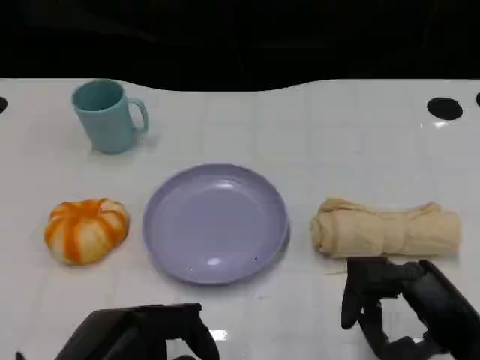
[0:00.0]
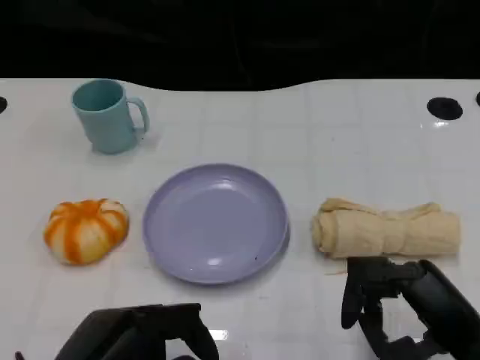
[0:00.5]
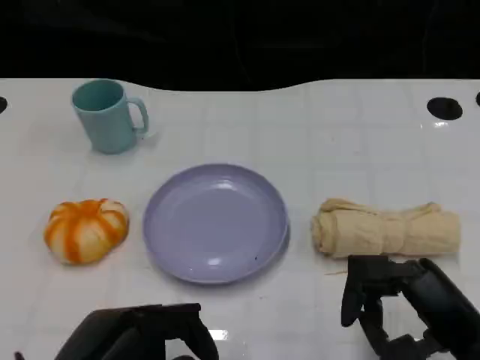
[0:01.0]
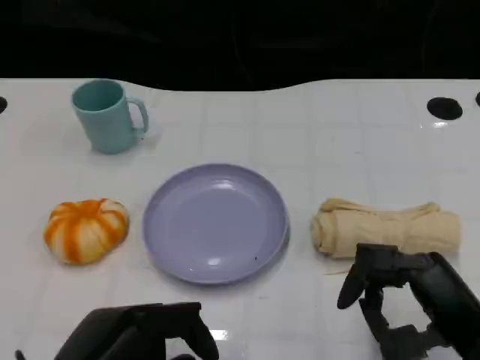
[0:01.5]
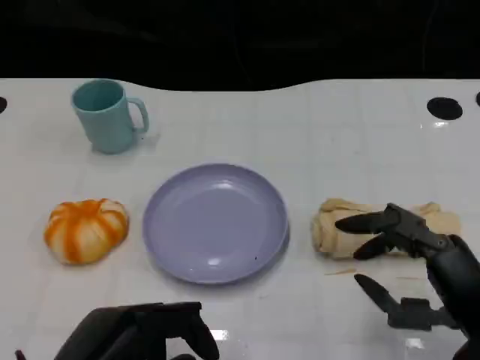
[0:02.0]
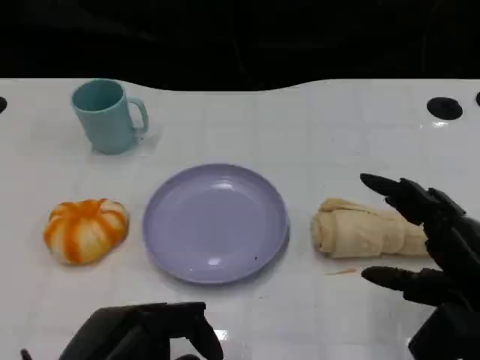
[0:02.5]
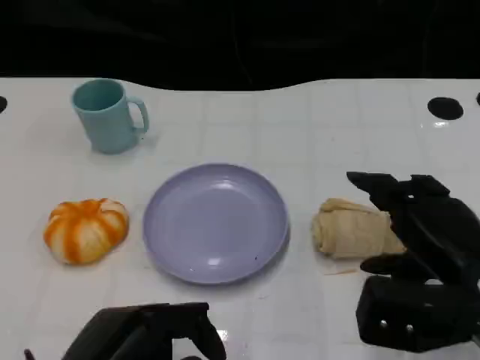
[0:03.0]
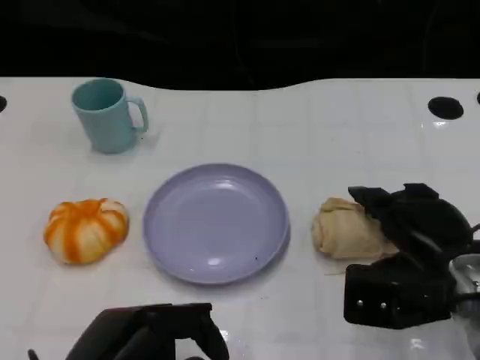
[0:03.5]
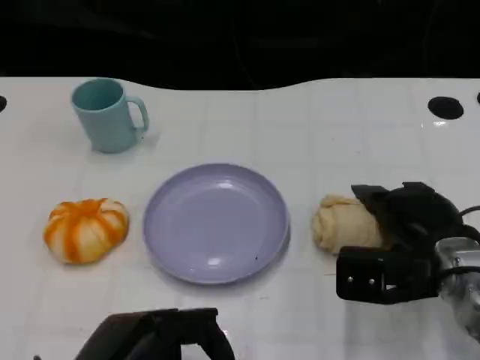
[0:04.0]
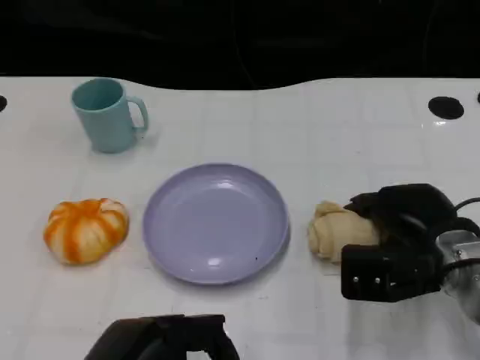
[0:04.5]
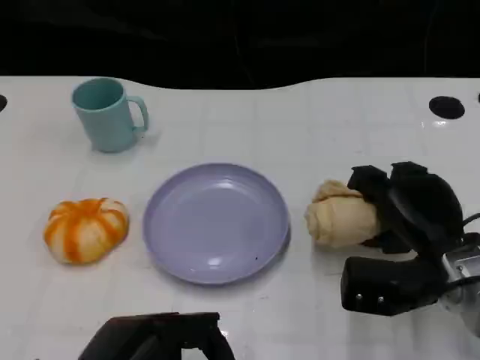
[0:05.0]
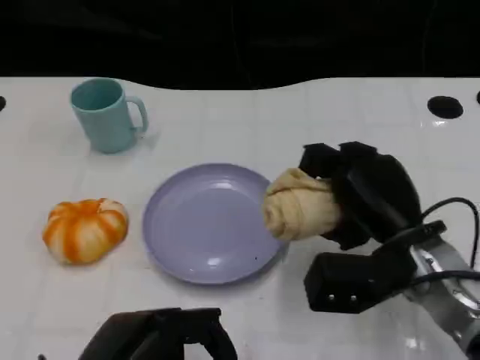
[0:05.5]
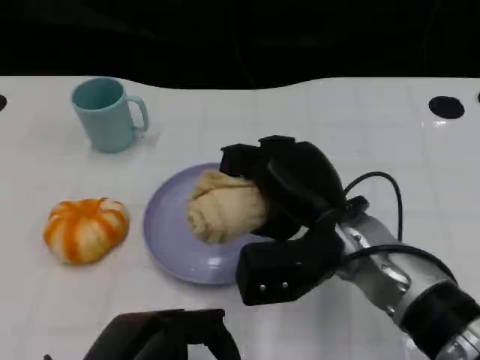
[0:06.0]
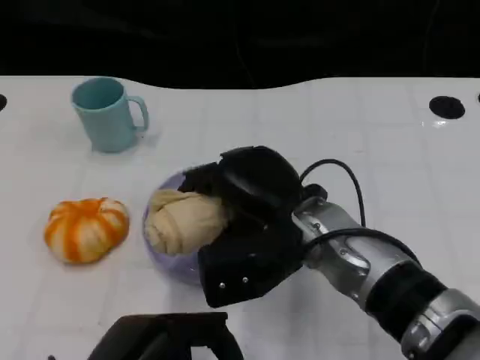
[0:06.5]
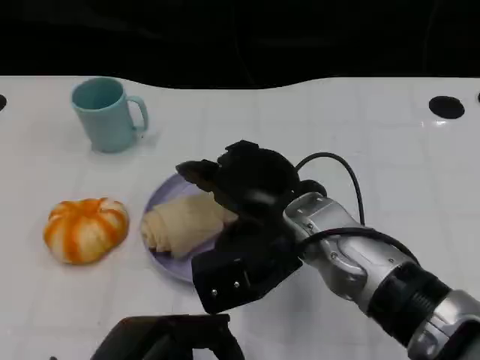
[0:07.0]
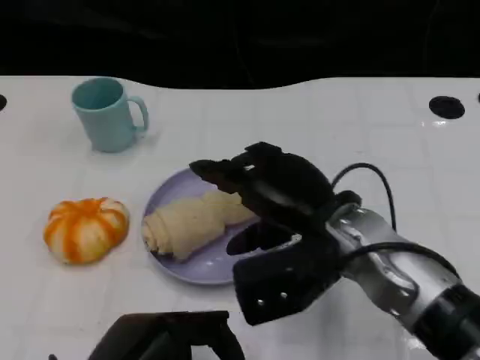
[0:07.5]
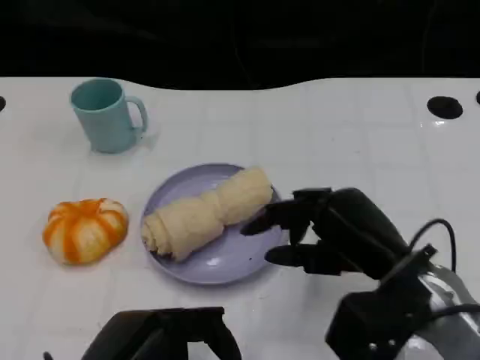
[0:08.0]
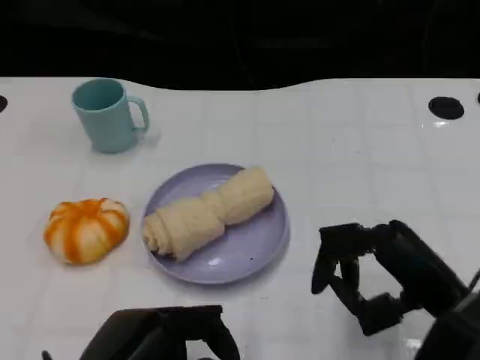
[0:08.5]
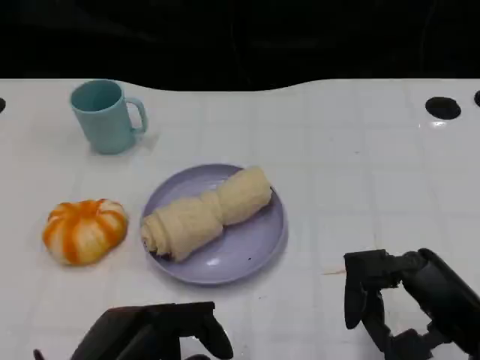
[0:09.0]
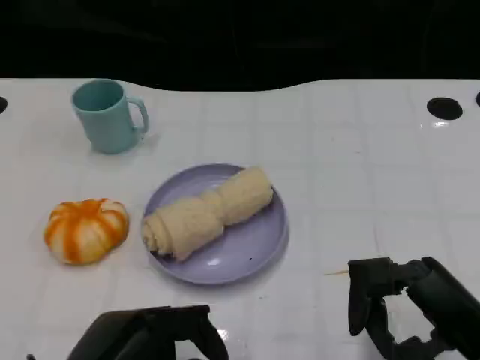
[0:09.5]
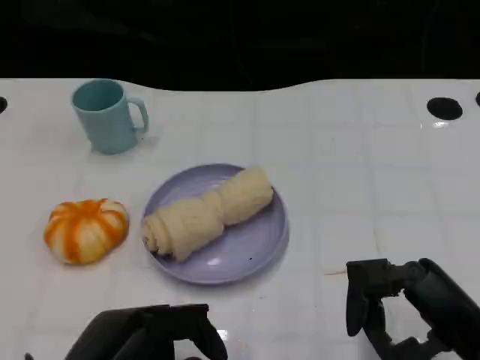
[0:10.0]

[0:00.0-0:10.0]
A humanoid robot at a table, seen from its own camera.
Task of the whole recording: Grasp the towel on the left side of the plate with the left hand and place it into the plate.
0:00.0 to 0:02.0: There are only small adjustments of the hands.
0:02.0 to 0:04.0: The right hand travels forward by about 10 cm.
0:04.0 to 0:06.0: The right hand shifts about 10 cm to the left.
0:06.0 to 0:08.0: The right hand goes about 10 cm to the right.
0:08.0 to 0:10.0: The right hand heads backward and to the right, covering roughly 10 cm.

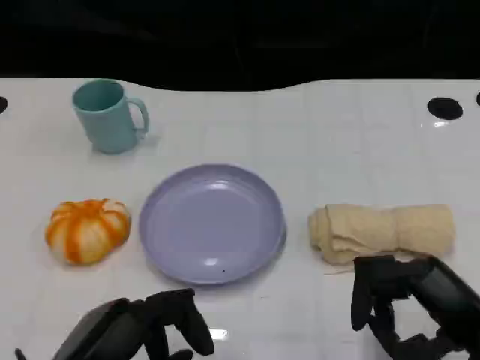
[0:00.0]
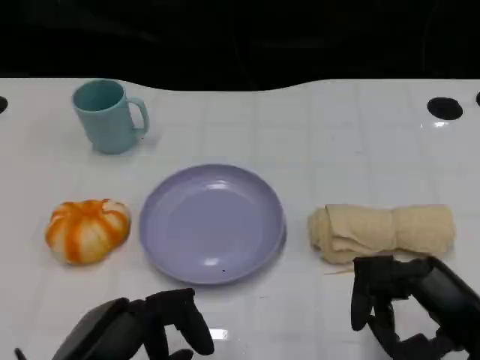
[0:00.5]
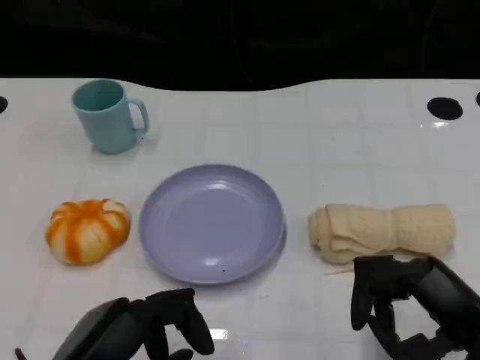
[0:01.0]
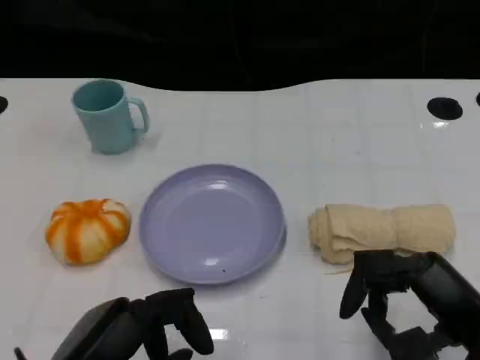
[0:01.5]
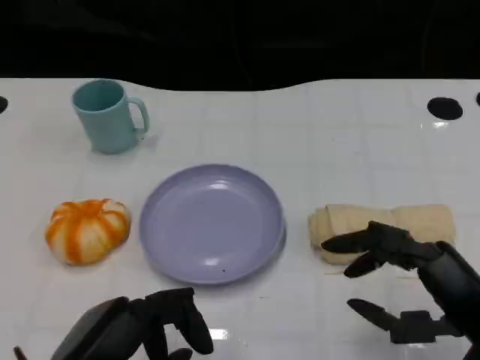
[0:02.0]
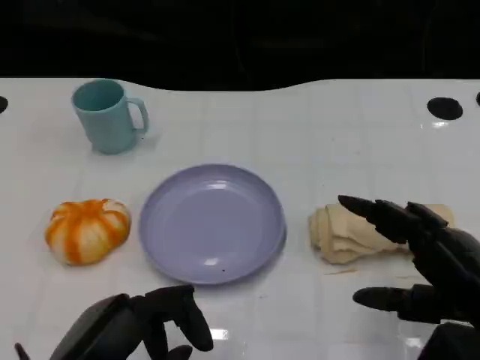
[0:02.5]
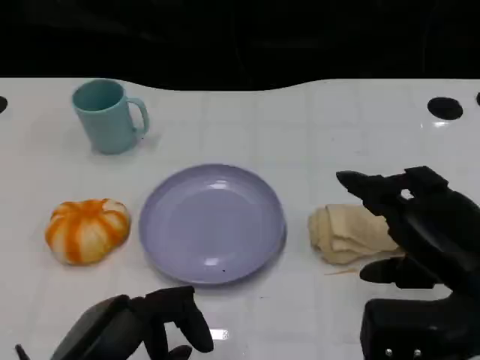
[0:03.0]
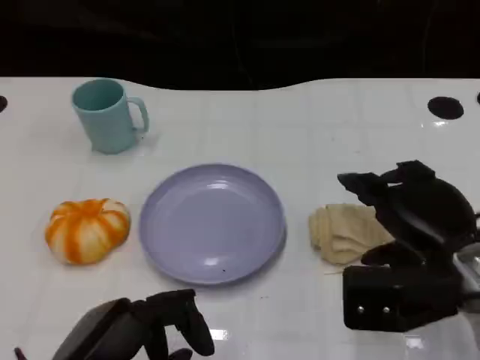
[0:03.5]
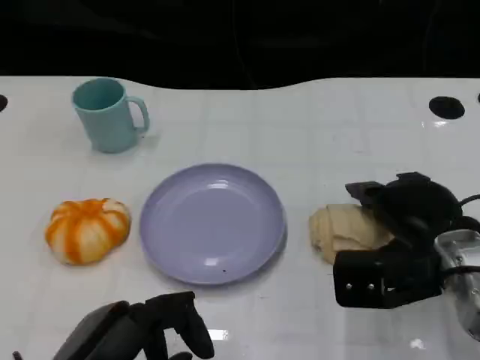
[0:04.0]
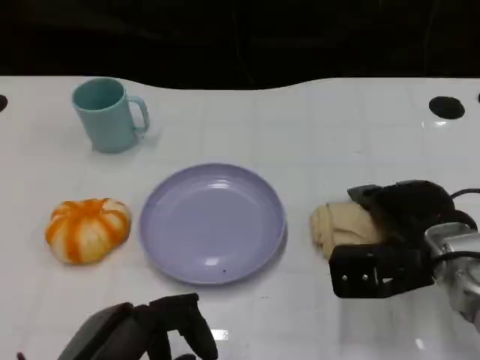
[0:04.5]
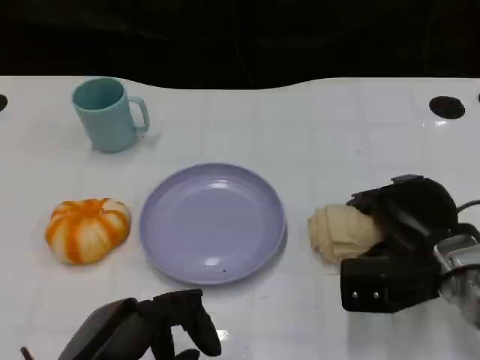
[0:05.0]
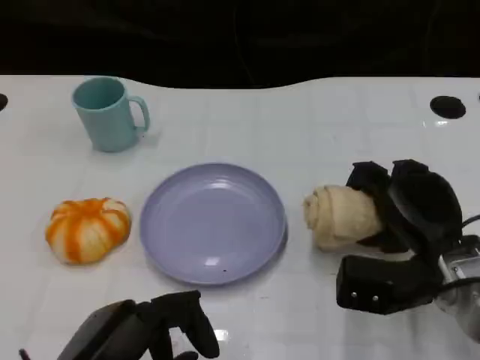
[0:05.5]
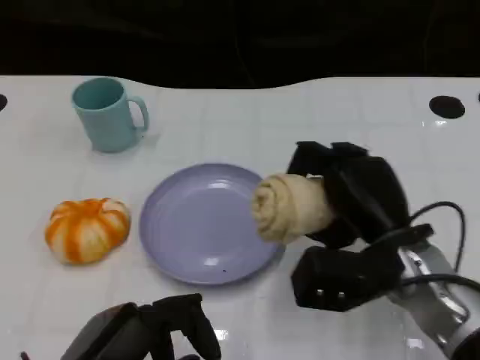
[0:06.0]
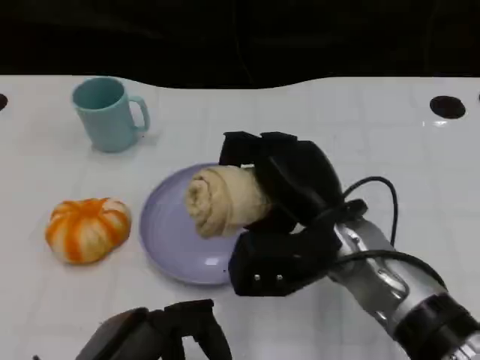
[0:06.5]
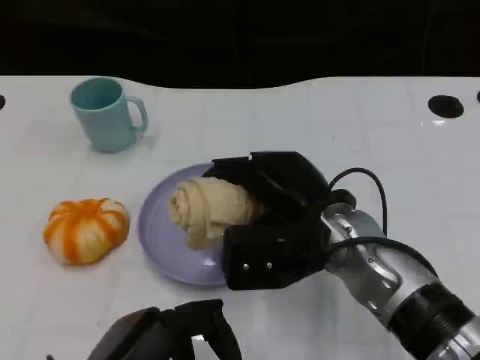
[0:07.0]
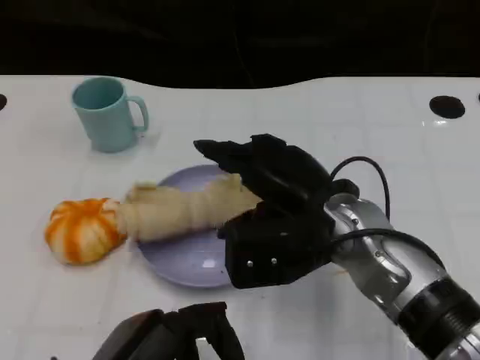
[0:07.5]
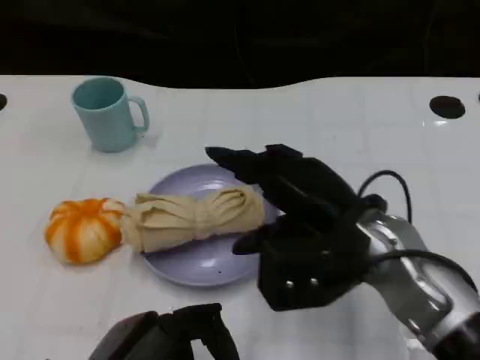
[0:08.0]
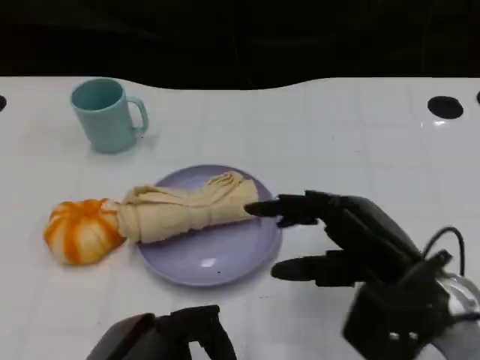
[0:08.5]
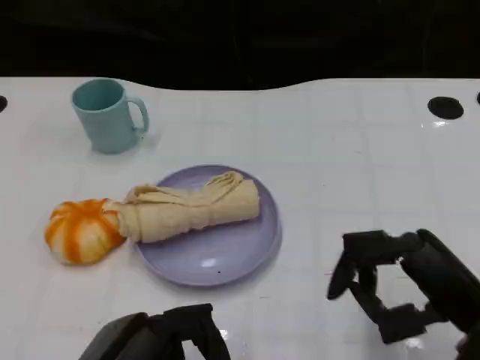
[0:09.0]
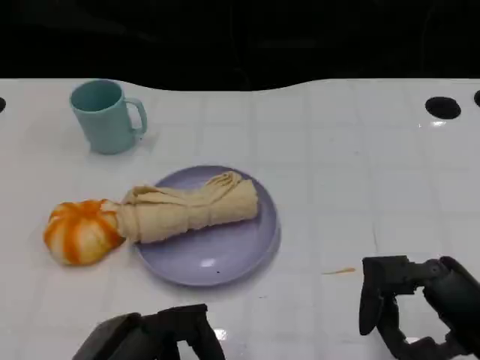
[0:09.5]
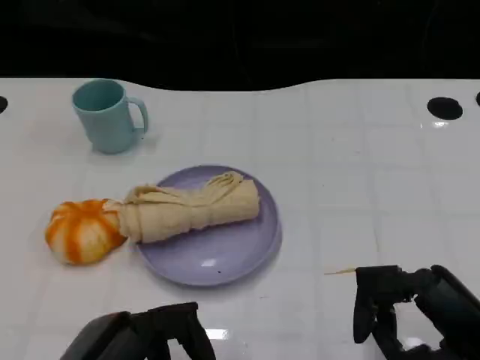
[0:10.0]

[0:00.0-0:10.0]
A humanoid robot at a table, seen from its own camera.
Task of the whole recording: Grasp the towel on the left side of the plate with the left hand and place it into the plate.
0:00.0 to 0:02.0: The hands stay close to where they were, moving slightly.
0:02.0 to 0:04.0: The right hand is displaced forward by approximately 10 cm.
0:04.0 to 0:06.0: The right hand moves to the left, approximately 5 cm.
0:08.0 to 0:10.0: The right hand shifts some 15 cm to the right and backward.
